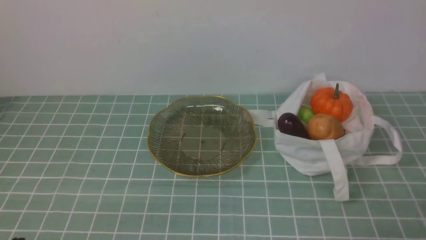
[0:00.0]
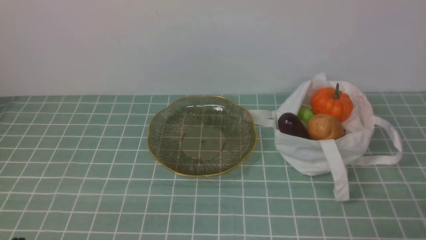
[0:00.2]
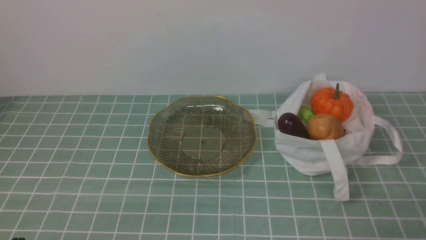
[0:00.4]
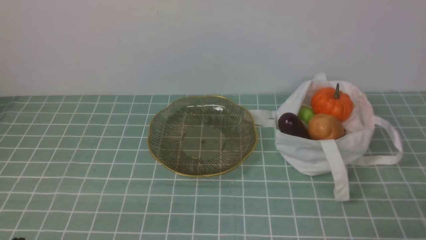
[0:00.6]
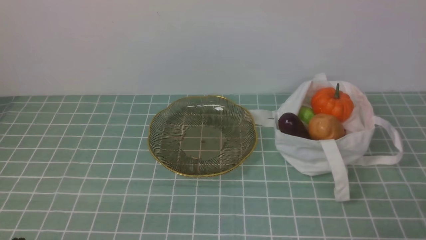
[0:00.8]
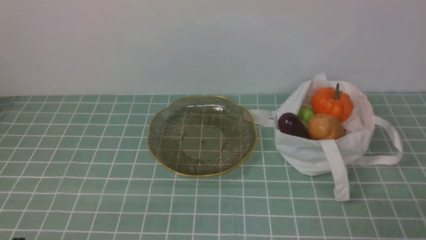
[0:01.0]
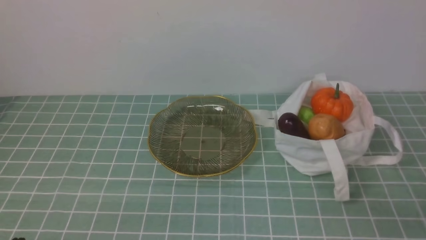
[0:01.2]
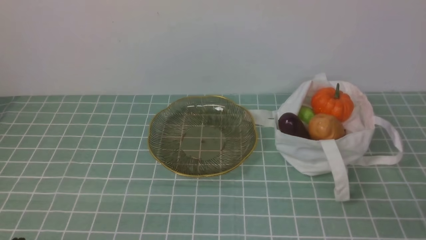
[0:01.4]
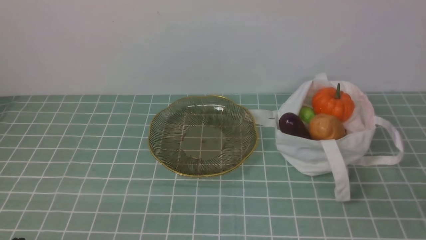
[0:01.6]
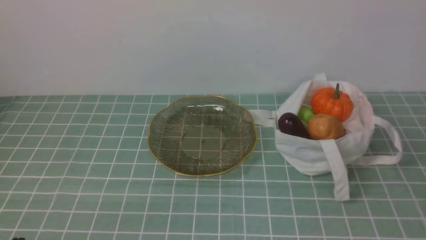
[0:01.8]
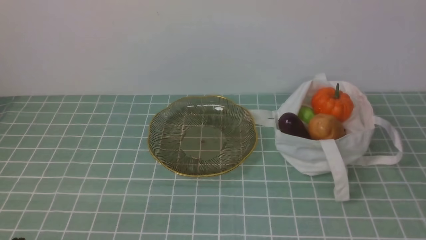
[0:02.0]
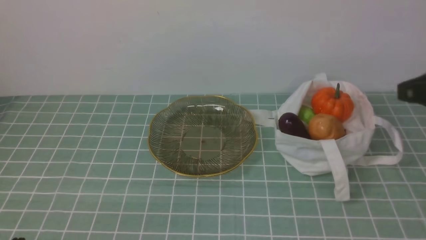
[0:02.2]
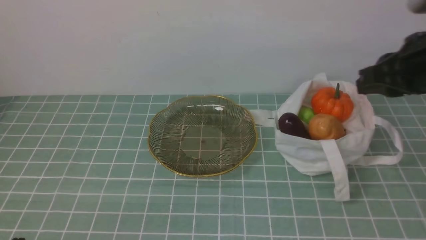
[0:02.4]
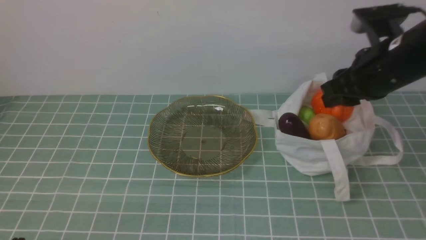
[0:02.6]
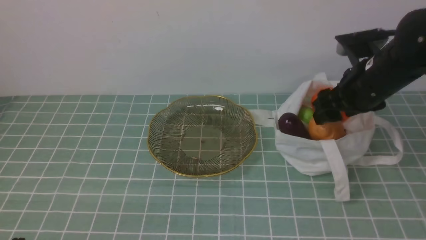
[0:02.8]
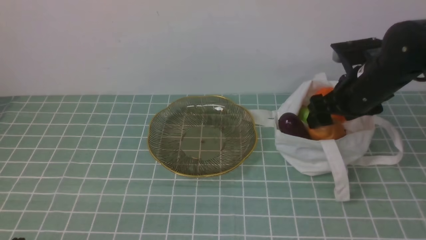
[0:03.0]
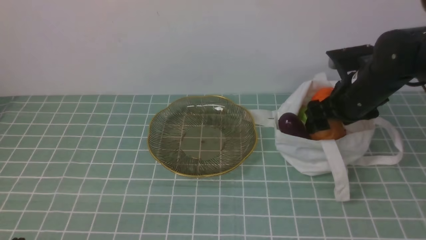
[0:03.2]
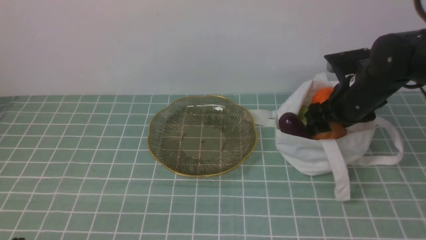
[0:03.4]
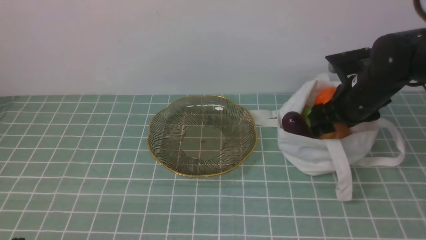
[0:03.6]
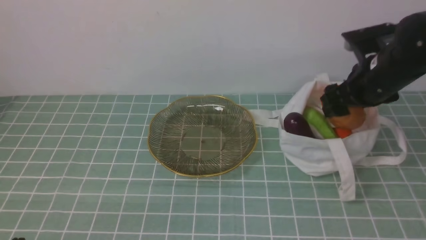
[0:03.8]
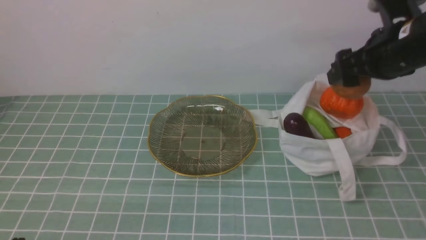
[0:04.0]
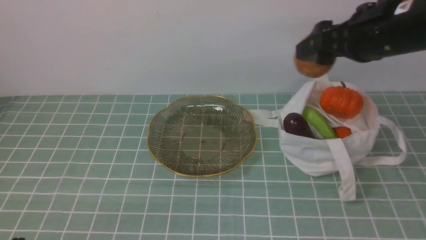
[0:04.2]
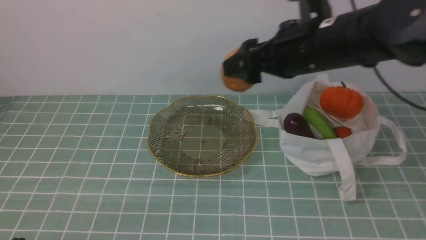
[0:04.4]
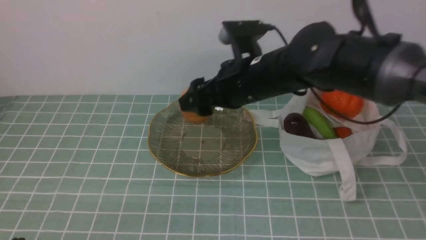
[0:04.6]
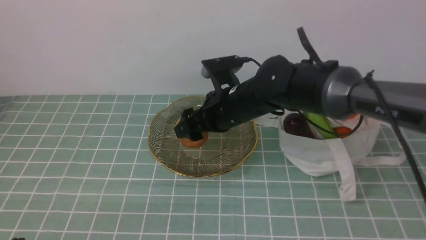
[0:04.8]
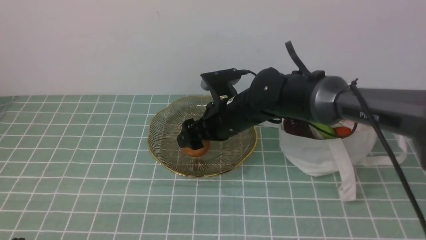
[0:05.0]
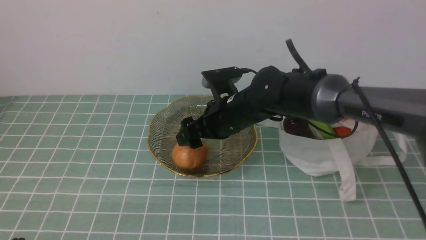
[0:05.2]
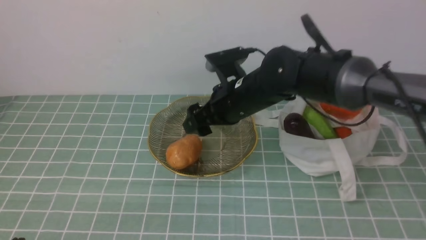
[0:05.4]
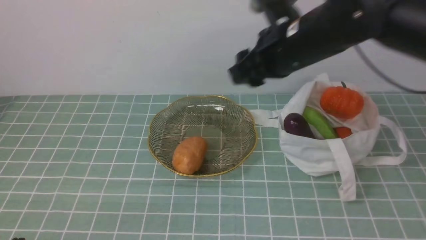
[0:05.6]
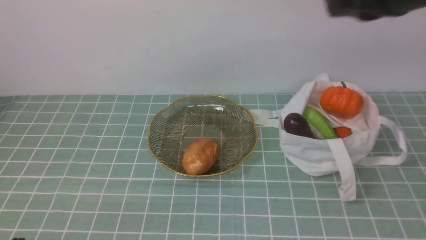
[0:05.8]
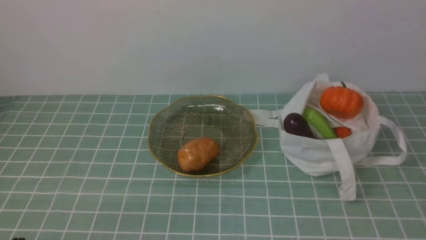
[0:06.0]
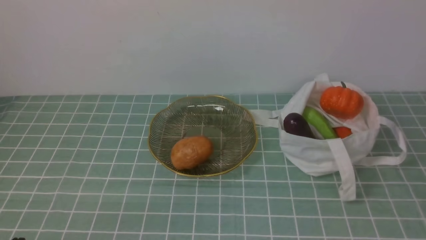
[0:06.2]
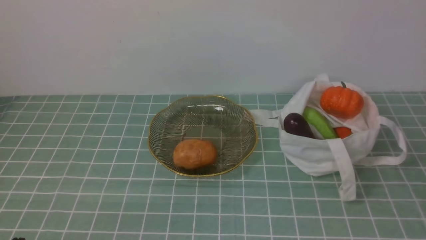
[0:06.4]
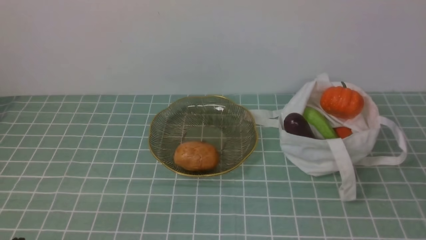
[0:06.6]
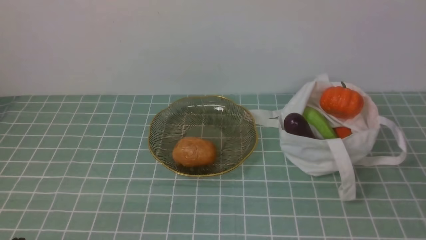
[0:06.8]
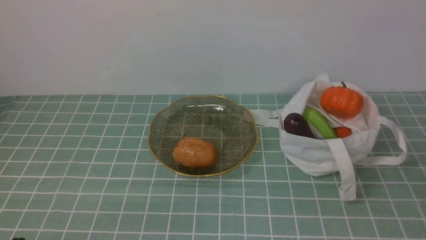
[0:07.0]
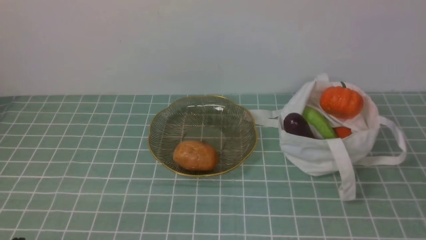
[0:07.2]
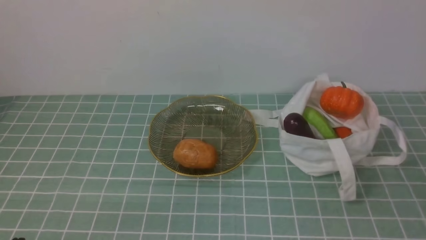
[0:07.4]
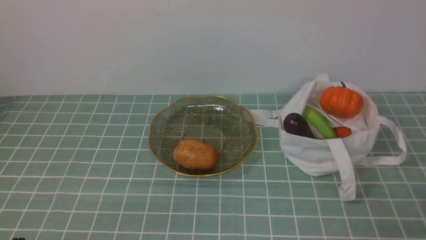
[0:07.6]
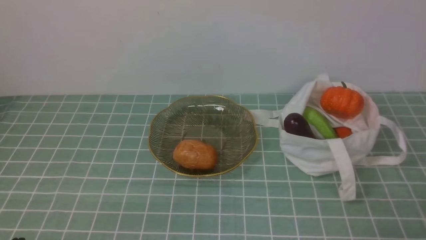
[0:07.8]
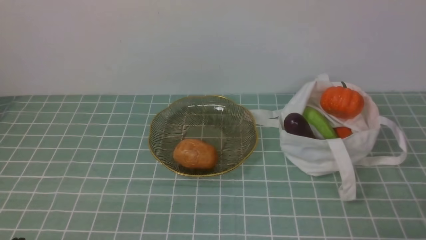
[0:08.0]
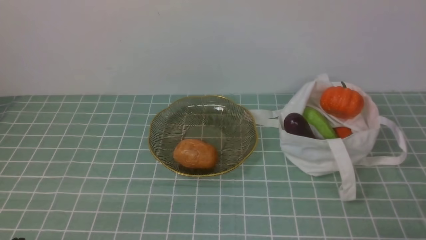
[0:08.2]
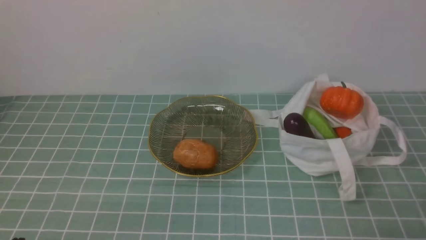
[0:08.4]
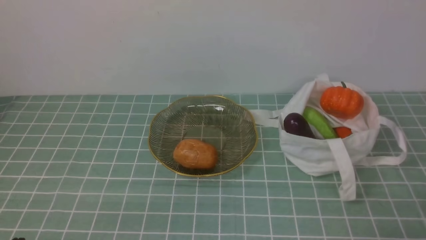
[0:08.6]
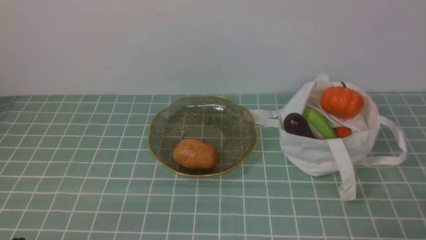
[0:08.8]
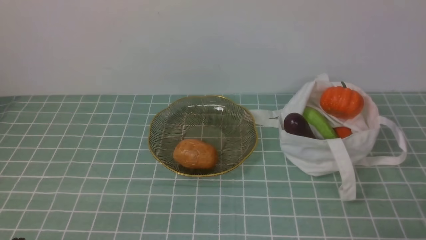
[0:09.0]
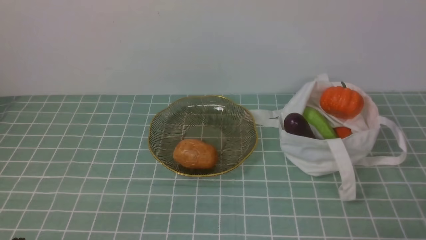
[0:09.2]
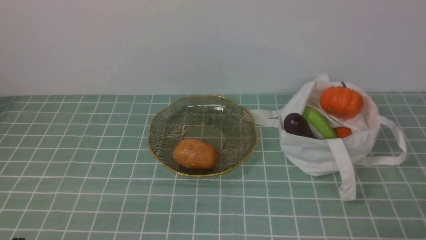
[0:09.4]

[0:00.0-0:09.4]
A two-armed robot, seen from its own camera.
Task of the whole recording: take vegetables from cloth bag on blue coffee tablecloth place on plate.
Step, 0:00.0 to 0:03.6: Grasp the potato with right gripper.
Step, 0:03.8 to 0:05.2: Place the potato on the plate with right gripper.
0:01.6 to 0:03.2: The right gripper heads forward, covering some 30 cm, and opens.
0:03.2 to 0:04.8: The right gripper goes roughly 20 cm to the left.
0:04.8 to 0:06.2: The right gripper goes some 40 cm backward, to the right and upward, and closes up.
0:07.8 to 0:09.4: Neither gripper changes place.
